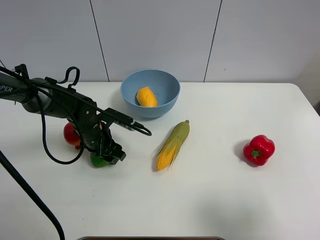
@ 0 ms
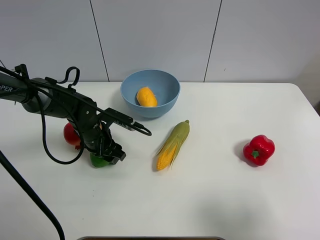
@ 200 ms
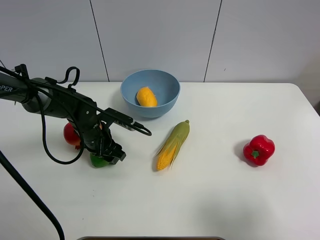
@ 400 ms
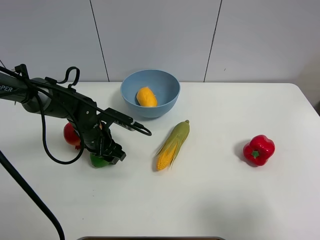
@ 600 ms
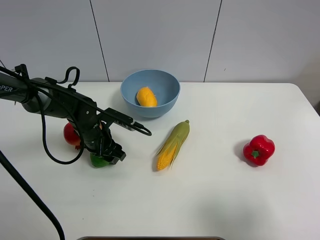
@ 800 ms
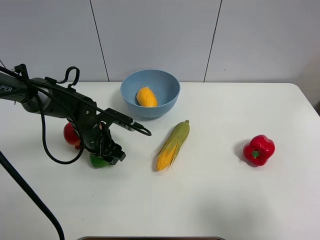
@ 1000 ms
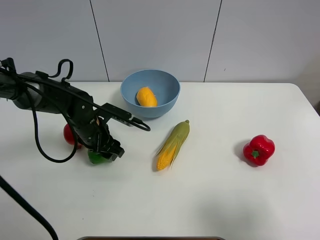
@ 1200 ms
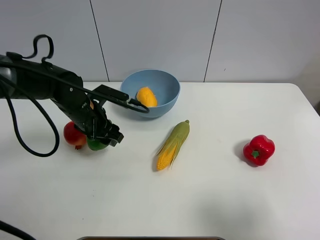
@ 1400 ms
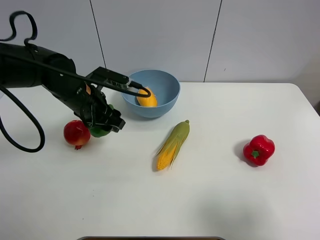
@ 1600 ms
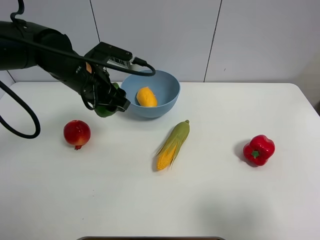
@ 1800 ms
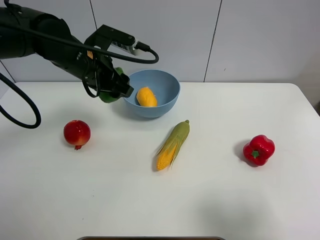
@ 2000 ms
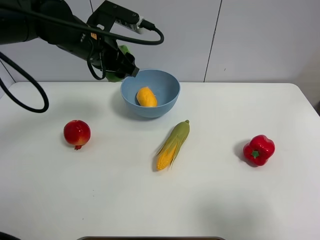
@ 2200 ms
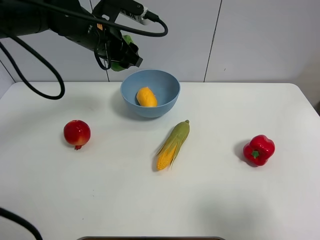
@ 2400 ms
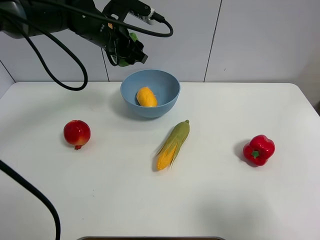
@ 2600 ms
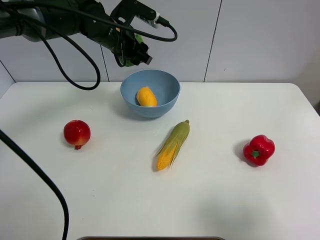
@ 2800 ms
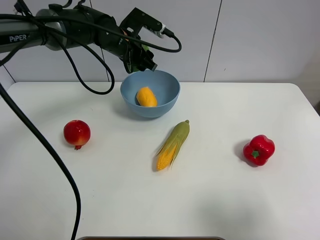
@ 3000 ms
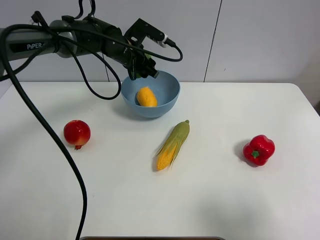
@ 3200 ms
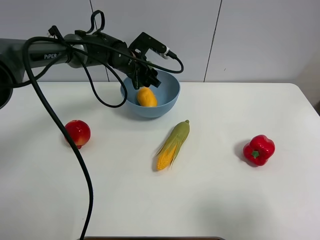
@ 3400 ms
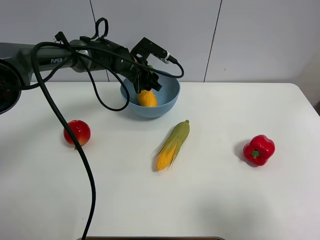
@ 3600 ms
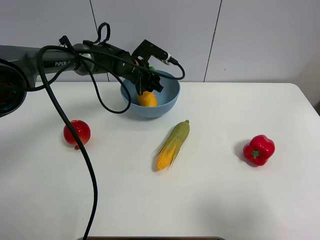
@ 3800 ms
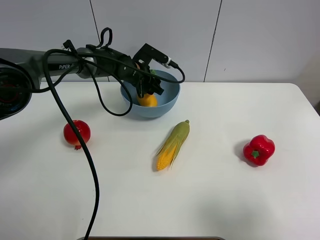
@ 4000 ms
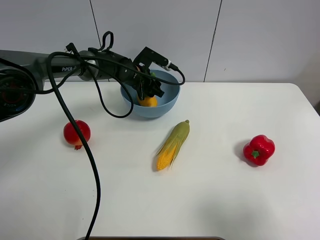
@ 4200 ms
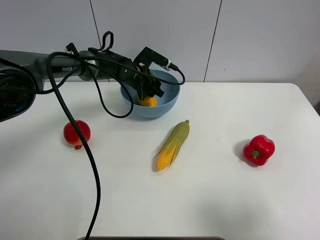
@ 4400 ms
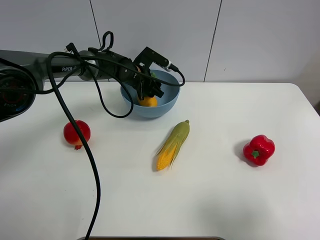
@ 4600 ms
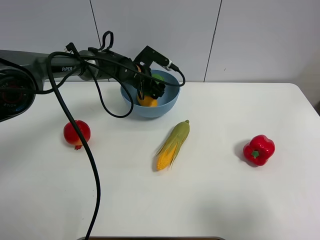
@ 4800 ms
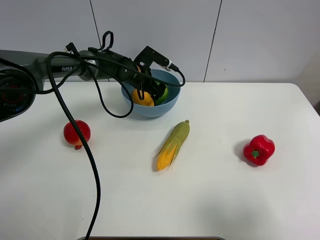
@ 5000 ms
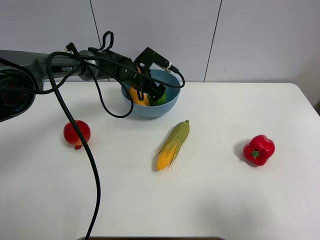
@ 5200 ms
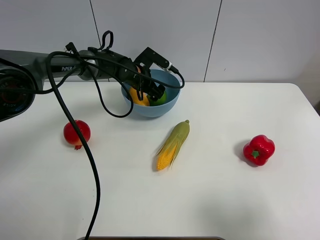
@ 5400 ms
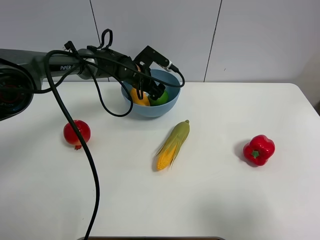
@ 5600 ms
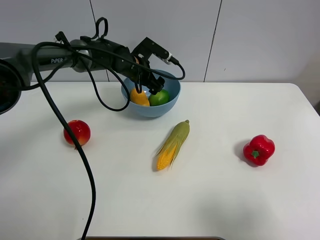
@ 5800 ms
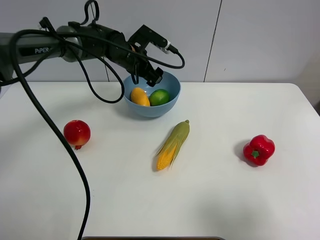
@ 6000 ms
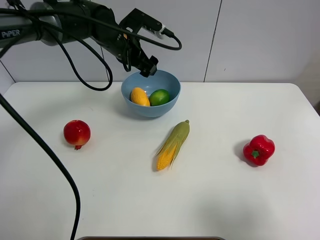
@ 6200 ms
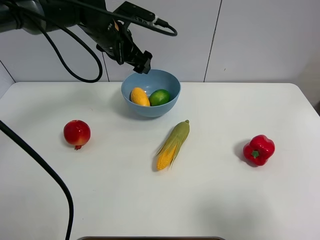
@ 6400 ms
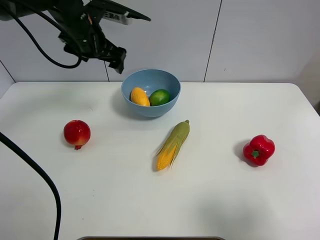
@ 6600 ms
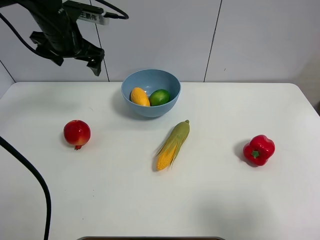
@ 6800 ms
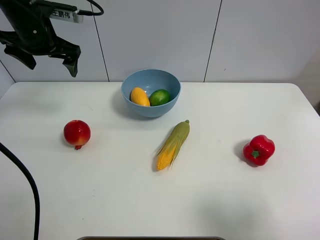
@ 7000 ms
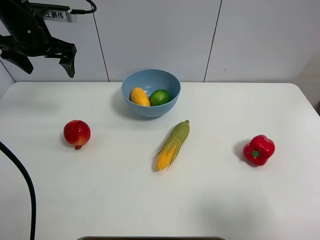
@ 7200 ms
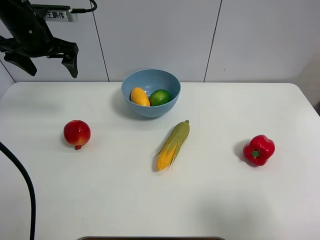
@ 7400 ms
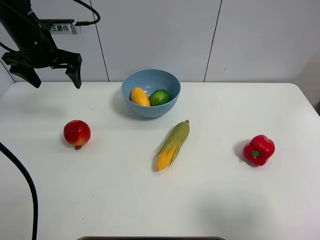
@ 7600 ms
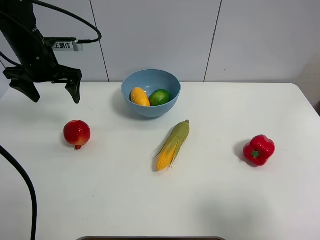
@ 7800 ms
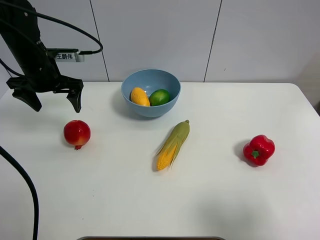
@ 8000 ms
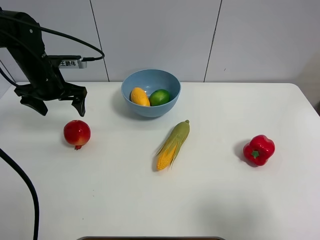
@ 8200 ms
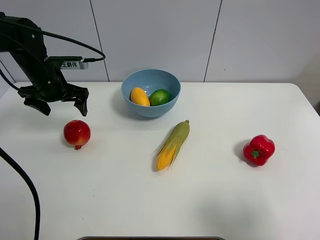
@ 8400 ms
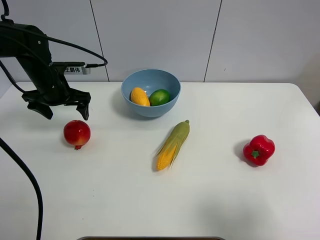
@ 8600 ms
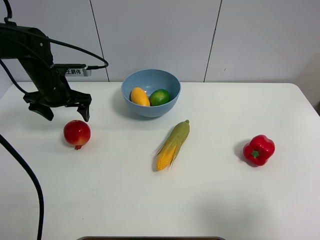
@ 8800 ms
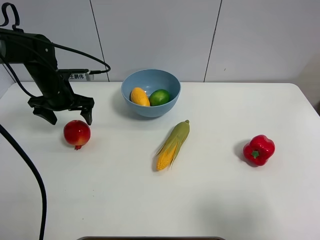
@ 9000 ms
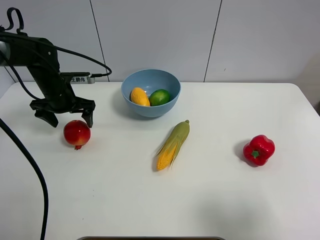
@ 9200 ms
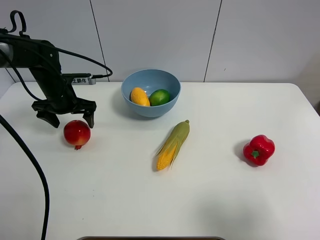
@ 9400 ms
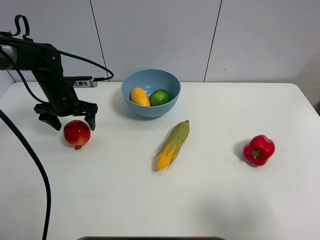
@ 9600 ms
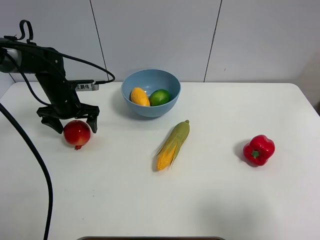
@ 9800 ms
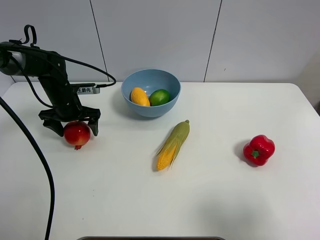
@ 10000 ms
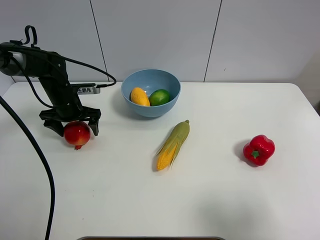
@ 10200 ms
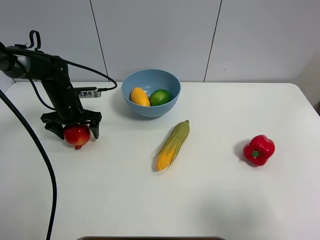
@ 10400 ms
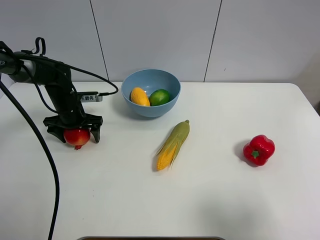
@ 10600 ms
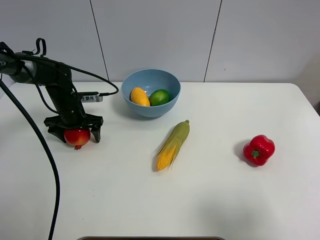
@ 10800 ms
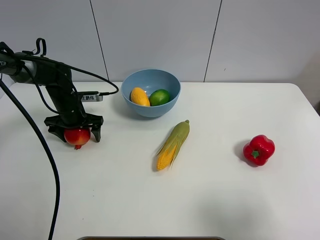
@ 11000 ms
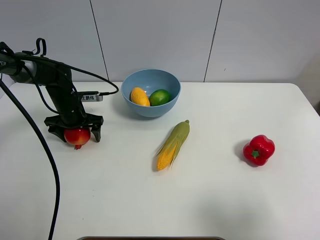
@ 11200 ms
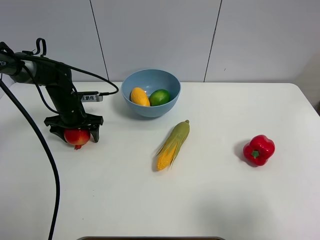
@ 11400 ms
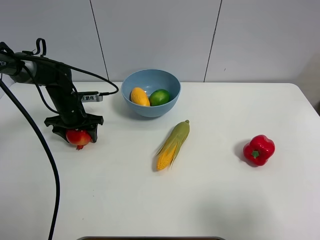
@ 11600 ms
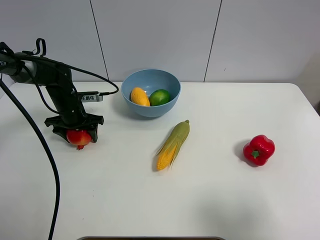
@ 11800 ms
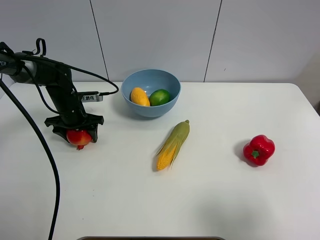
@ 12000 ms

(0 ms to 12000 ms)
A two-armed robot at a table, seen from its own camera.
Task of the whole recording: Put the three fruits on the table into a bowl.
Step, 0 ms - 5000 ms: Place the green lemon in the blue bowl with left gripper.
Step, 5200 ms - 11600 ms: Grasp the pomegranate with left gripper.
0 ms - 1600 ms: The left gripper is displaced upward by about 10 cm.
1600 ms - 3000 ms: The left gripper shifts roughly 15 cm forward and to the right.
3000 ms - 4400 ms: The left gripper is displaced downward by approximately 10 cm.
4400 ms - 6000 ms: The left gripper heads upward, covering about 10 cm, and opens.
6000 ms - 7600 ms: The left gripper moves to the left, approximately 20 cm.
7600 ms - 9000 ms: The left gripper shifts about 10 cm downward.
9000 ms - 10400 ms: The left gripper moves downward, about 5 cm.
10400 ms - 12000 ms: The left gripper closes.

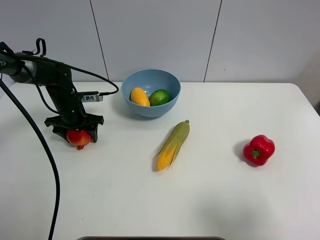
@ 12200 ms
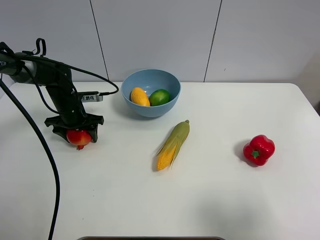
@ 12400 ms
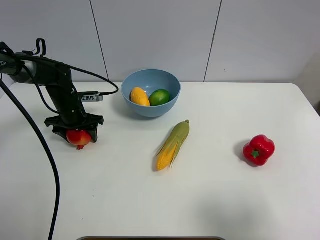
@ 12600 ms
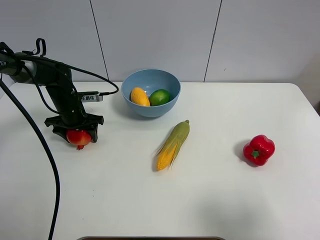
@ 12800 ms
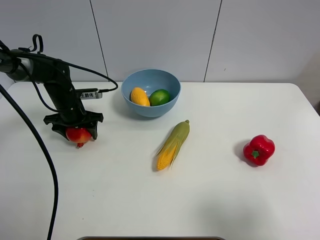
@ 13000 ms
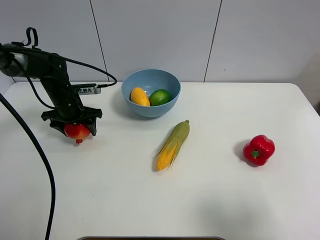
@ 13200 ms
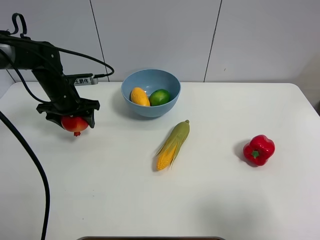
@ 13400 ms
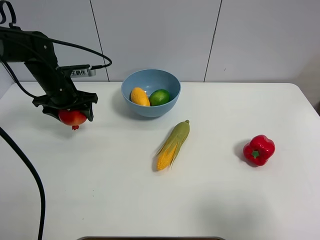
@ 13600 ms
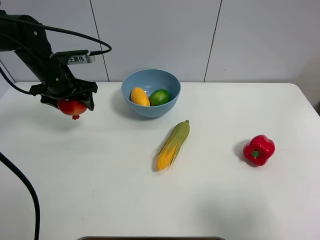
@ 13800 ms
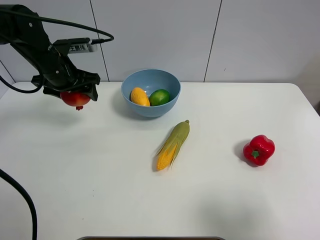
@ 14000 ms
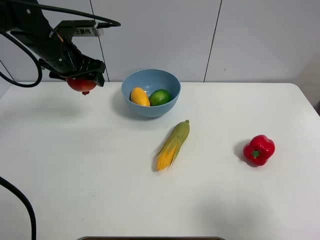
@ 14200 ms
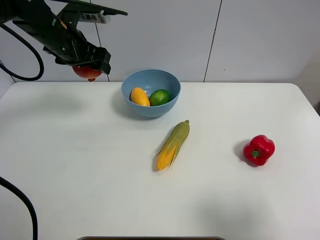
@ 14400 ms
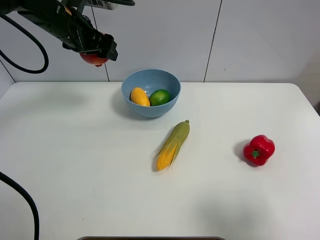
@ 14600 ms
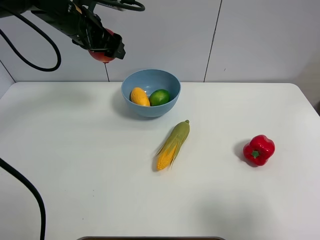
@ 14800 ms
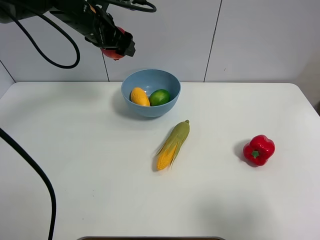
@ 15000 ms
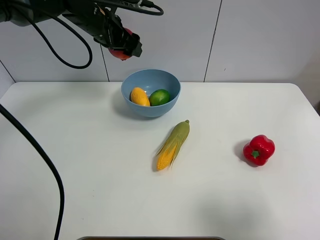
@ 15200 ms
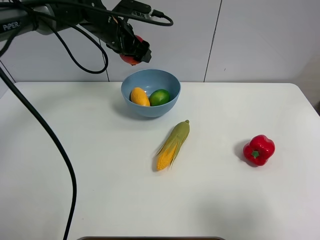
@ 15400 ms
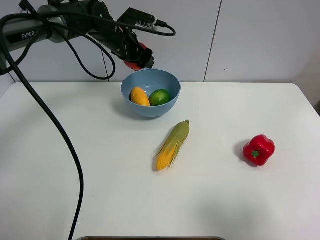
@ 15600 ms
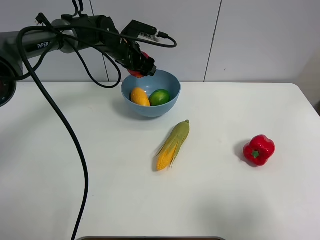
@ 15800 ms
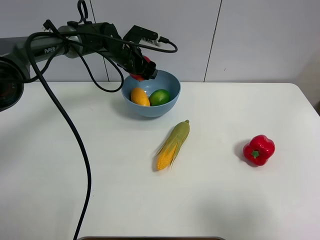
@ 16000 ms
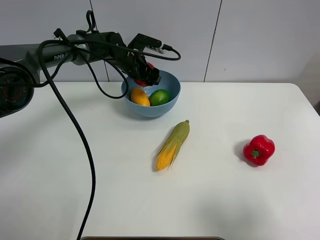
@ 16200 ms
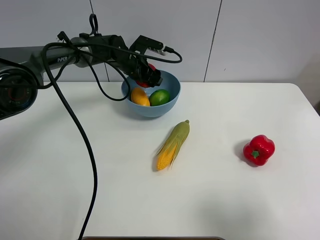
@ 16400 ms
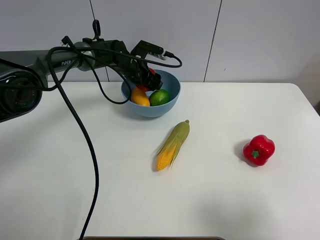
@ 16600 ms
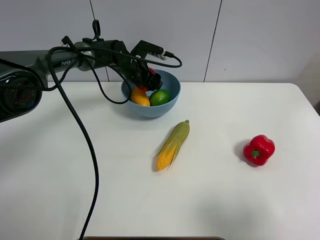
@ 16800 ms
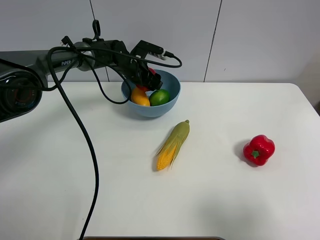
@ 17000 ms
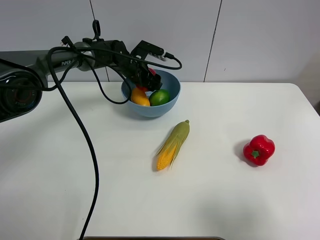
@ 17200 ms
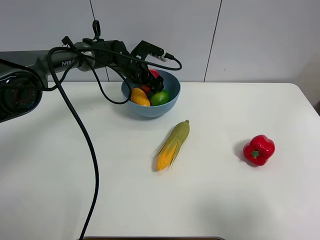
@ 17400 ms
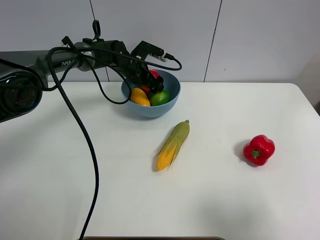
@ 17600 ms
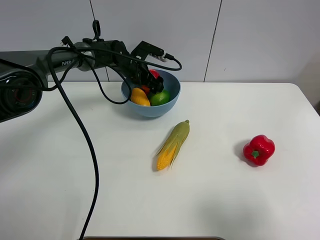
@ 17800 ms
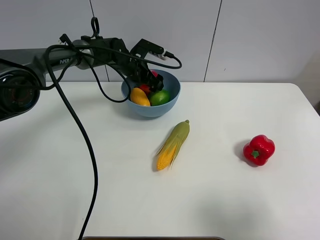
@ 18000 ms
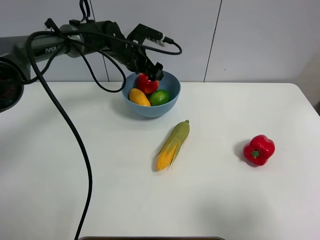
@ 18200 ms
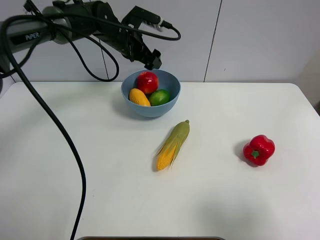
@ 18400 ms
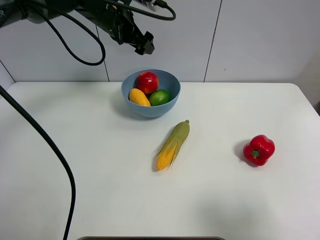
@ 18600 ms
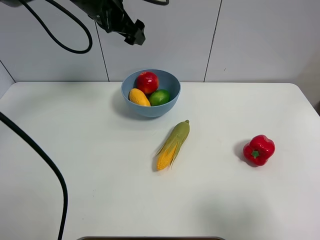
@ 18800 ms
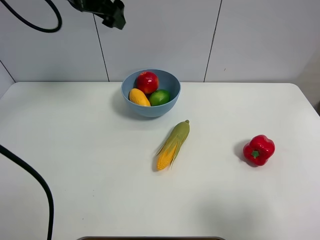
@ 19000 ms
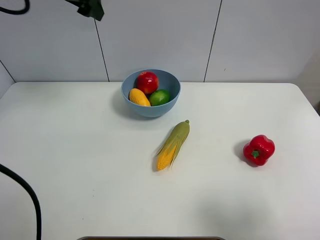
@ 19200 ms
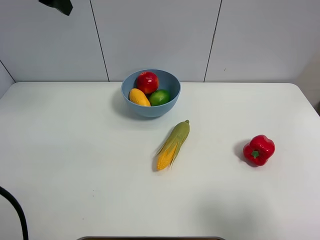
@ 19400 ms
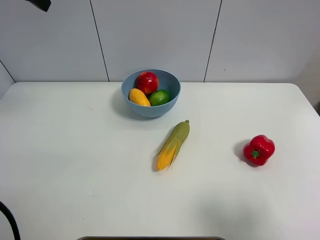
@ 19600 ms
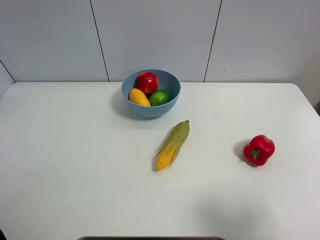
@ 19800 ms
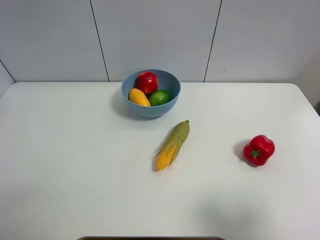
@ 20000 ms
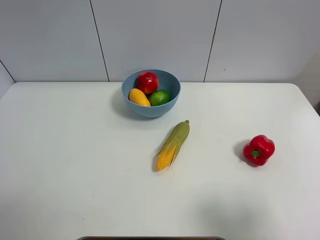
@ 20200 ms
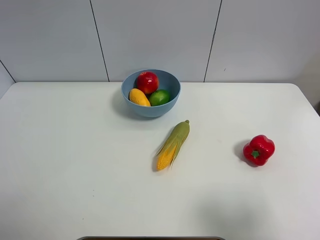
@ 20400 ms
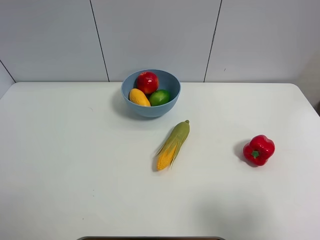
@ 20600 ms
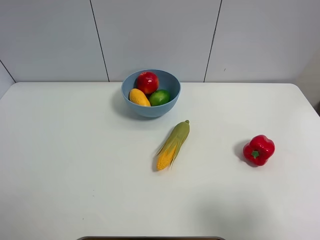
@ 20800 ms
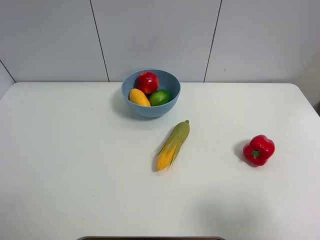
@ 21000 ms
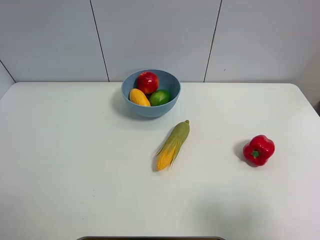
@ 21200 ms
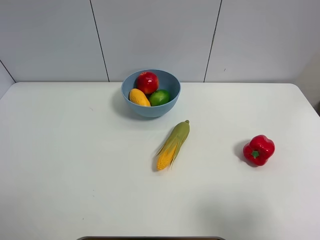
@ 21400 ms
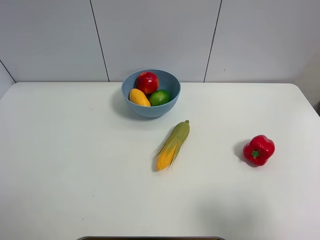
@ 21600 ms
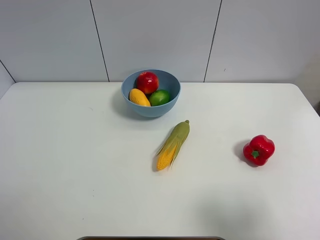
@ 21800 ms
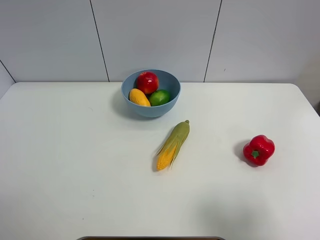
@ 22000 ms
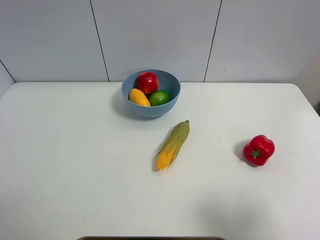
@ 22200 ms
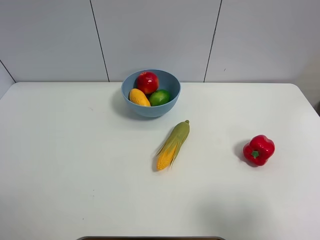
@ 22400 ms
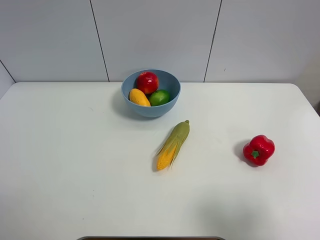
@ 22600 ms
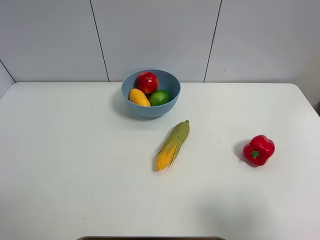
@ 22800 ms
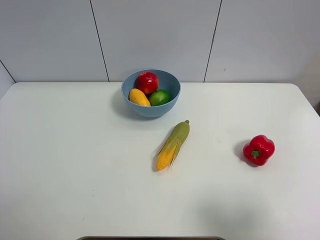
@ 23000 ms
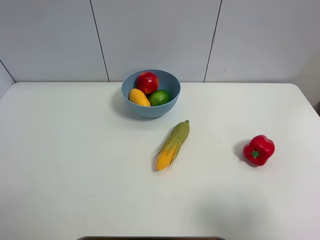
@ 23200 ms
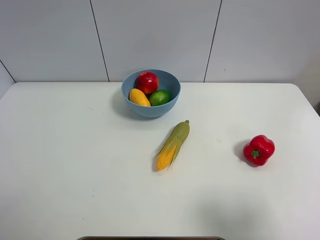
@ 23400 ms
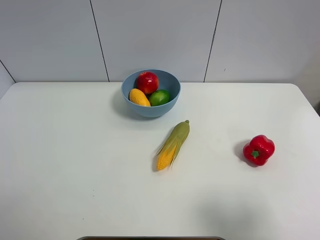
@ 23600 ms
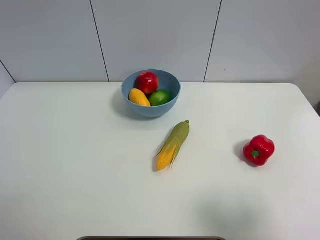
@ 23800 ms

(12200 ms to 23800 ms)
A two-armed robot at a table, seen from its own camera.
Task of the whole recording: Put the three fruits on the table into a bowl.
Step, 12200 ms - 18000 ms: Place the pomegranate in the blue bowl with left gripper.
12200 ms - 13600 ms: The left gripper goes about 10 cm upward.
13600 ms - 15000 ms: The left gripper moves upward and to the right, roughly 15 cm.
15000 ms - 16600 ms: The left gripper heads downward and to the right, covering some 15 cm.
16600 ms - 18000 ms: The left gripper opens up.
18000 ms - 19400 ms: The left gripper goes about 35 cm upward, to the left and backward.
19400 ms - 21000 ms: The left gripper moves backward, approximately 30 cm.
22400 ms - 23800 ms: Both grippers stay put.
